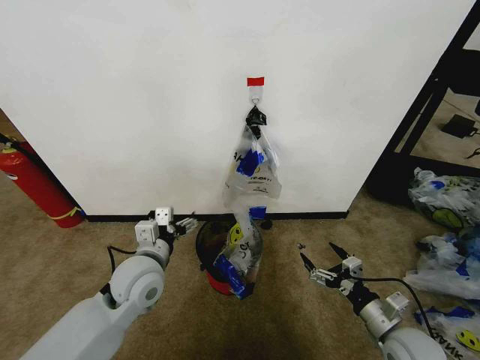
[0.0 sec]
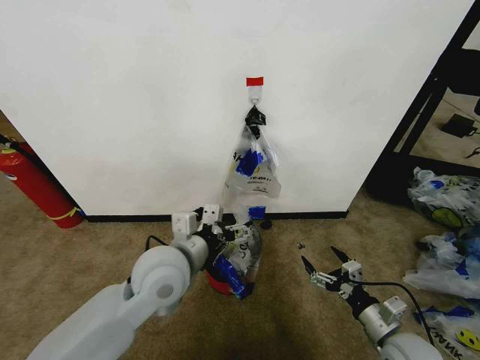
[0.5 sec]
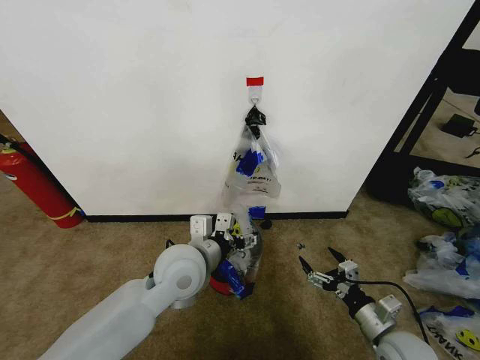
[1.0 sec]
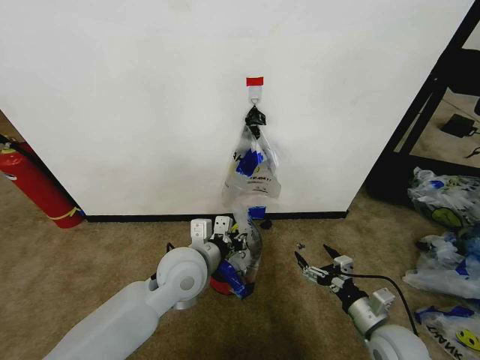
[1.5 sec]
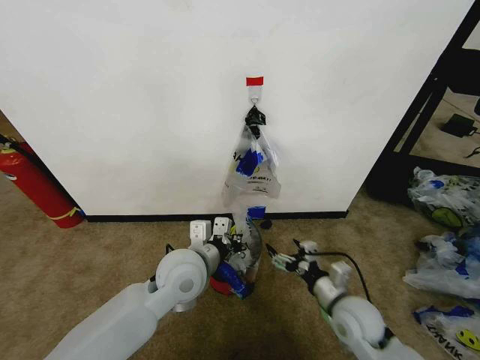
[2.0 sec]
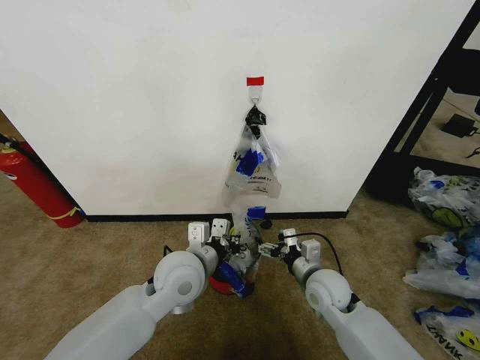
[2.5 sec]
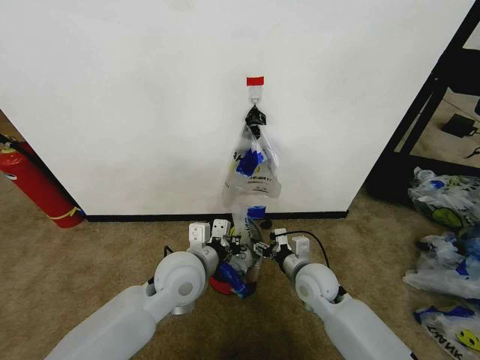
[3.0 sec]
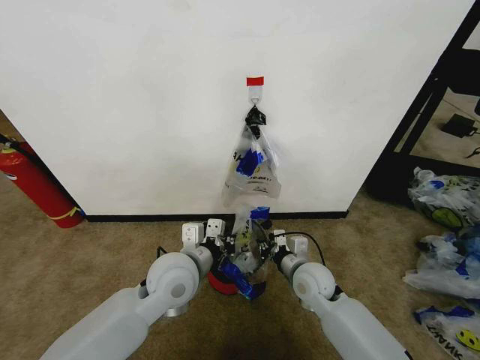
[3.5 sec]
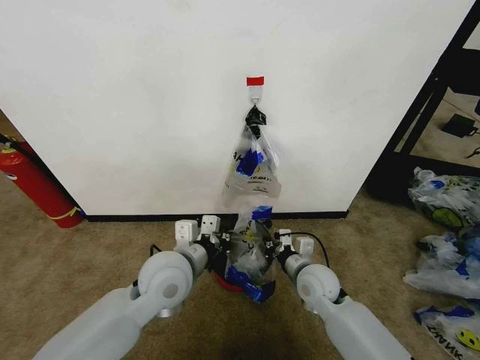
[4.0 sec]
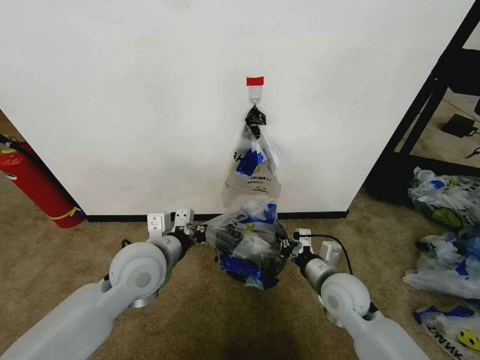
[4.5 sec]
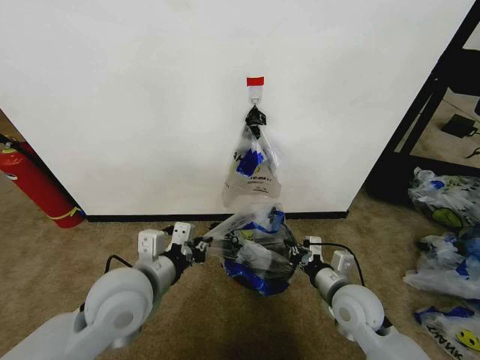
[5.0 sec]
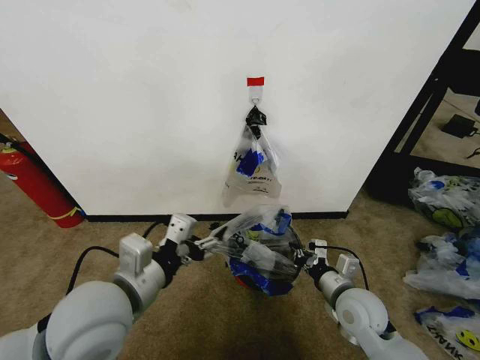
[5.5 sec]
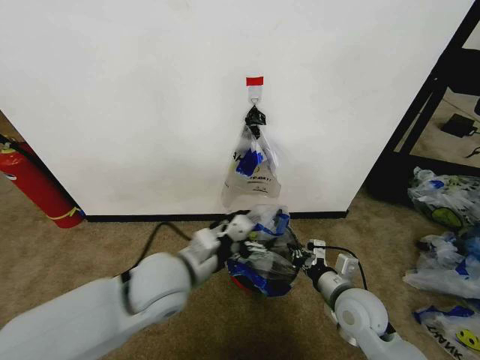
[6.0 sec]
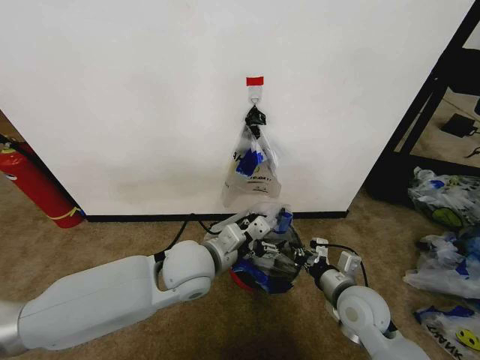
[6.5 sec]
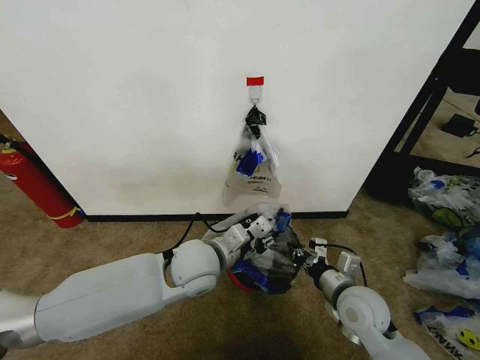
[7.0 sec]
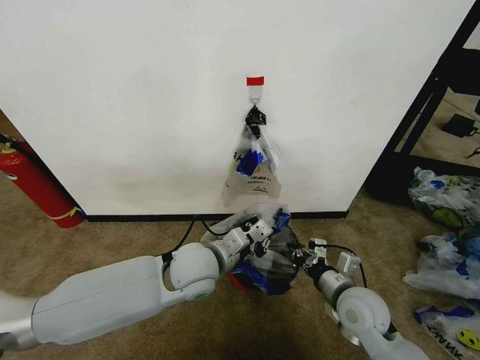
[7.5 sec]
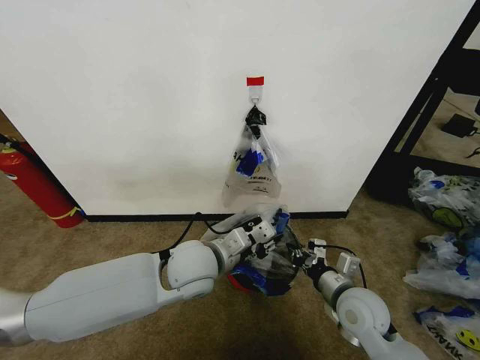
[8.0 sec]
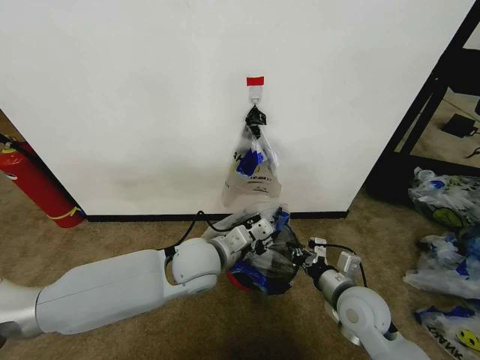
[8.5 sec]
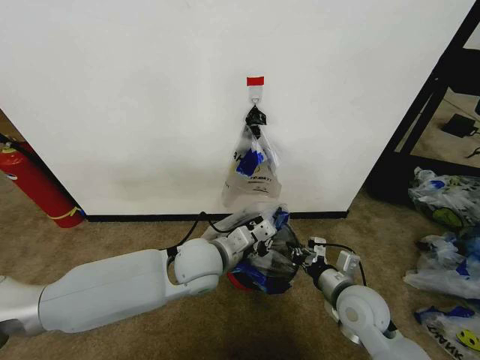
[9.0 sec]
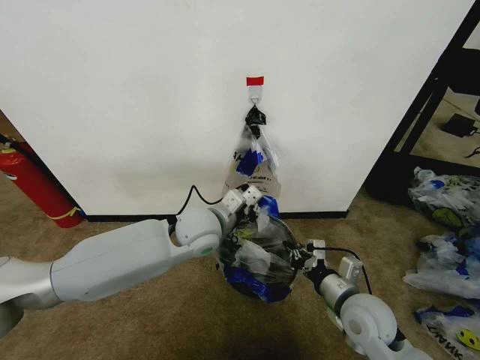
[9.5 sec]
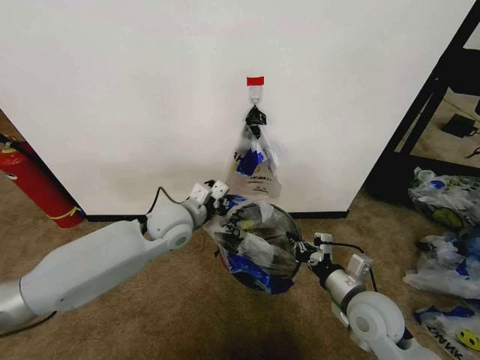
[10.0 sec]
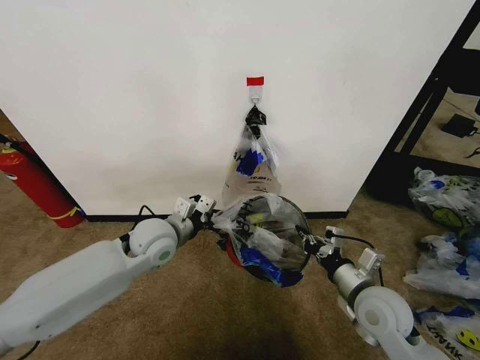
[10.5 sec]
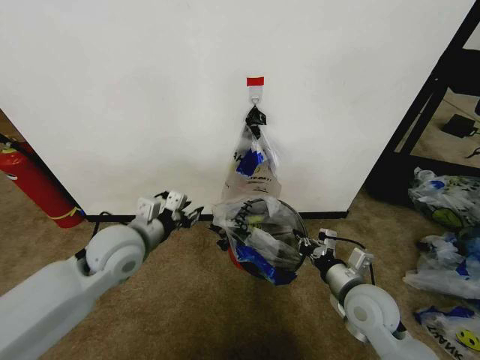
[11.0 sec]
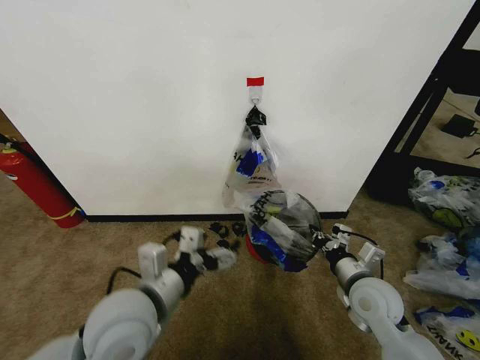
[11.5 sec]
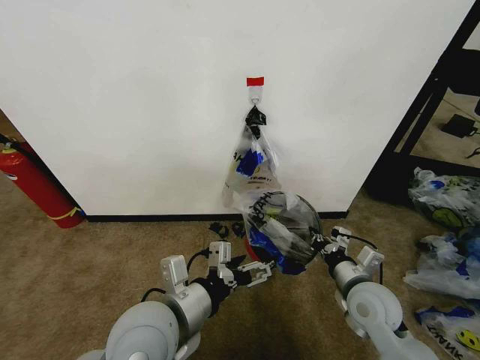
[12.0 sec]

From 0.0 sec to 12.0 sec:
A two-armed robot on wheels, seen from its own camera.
Task of the whole recording: Pick up the garbage bag from the wall and place it over the trash bin.
From 0.0 sec to 2.0 sec: The left gripper goes about 10 cm to the right, and closes up. Meanwhile the right gripper goes approximately 10 cm to the left and forward.
From 2.0 sec to 4.0 sec: The right gripper shifts roughly 10 cm forward and to the left, and closes up.
From 4.0 sec to 6.0 sec: The right gripper heads backward and to the right, covering some 10 cm; the left gripper reaches some 10 cm backward, then returns, and opens up.
From 6.0 sec to 8.0 sec: The left gripper moves roughly 5 cm, and closes.
From 8.0 sec to 10.0 sec: The left gripper shifts approximately 10 cm forward and to the left, and closes its fingers.
From 10.0 sec to 12.0 sec: The left gripper goes roughly 20 cm backward, and opens.

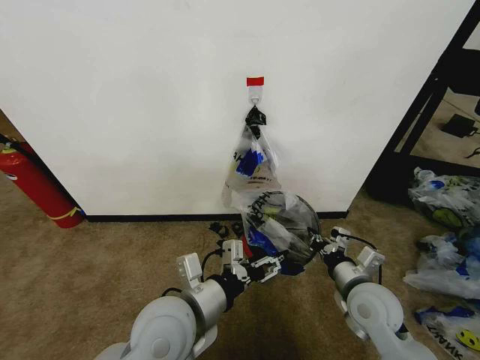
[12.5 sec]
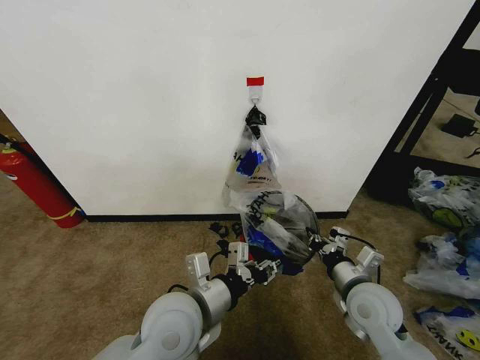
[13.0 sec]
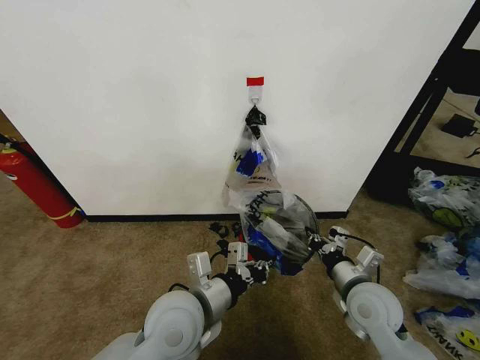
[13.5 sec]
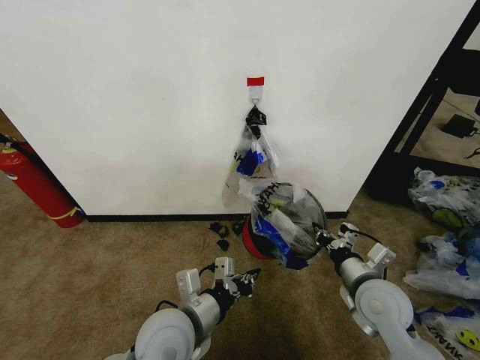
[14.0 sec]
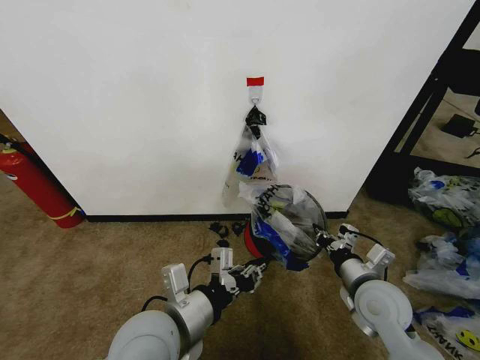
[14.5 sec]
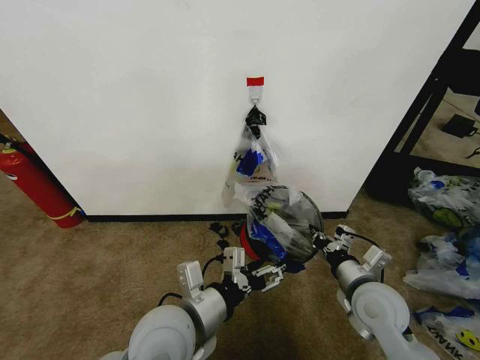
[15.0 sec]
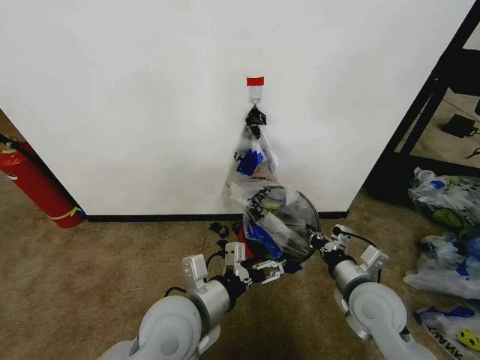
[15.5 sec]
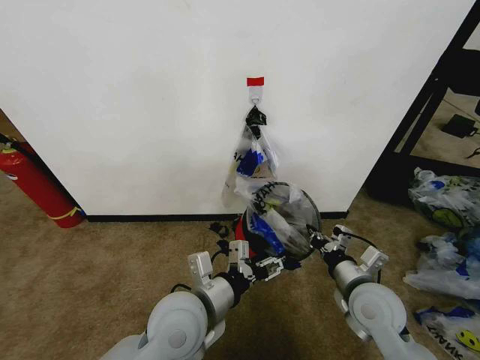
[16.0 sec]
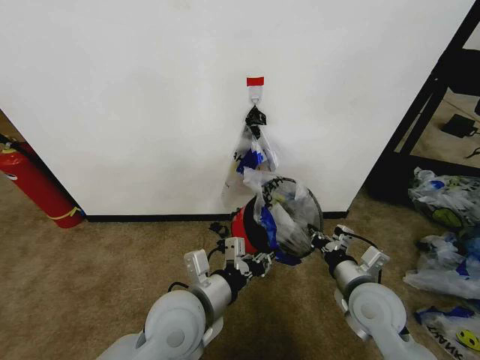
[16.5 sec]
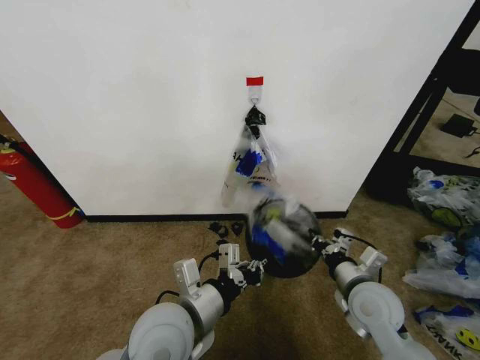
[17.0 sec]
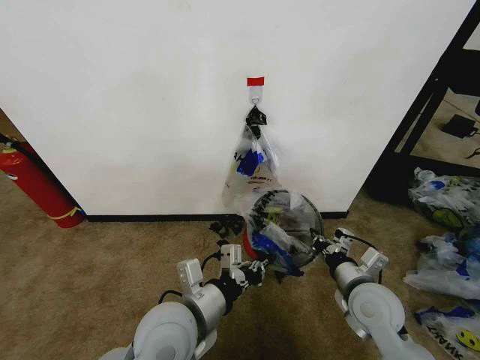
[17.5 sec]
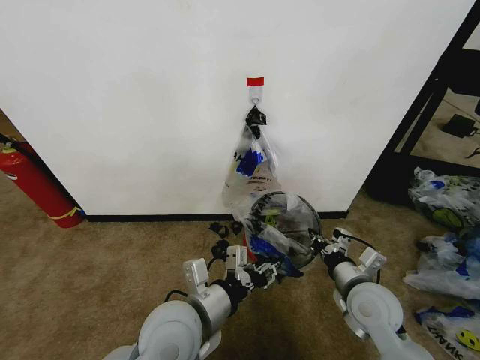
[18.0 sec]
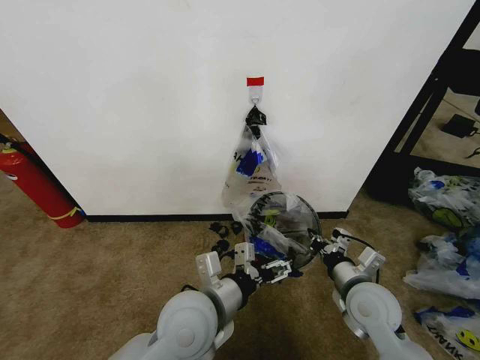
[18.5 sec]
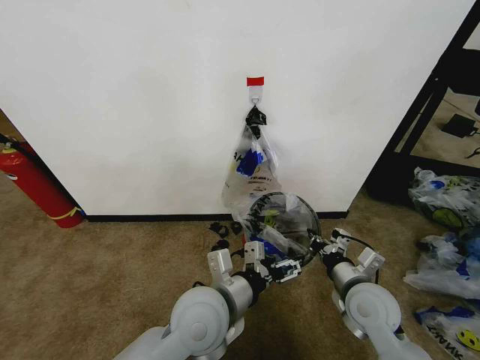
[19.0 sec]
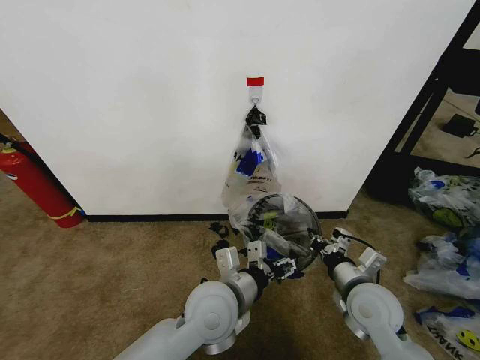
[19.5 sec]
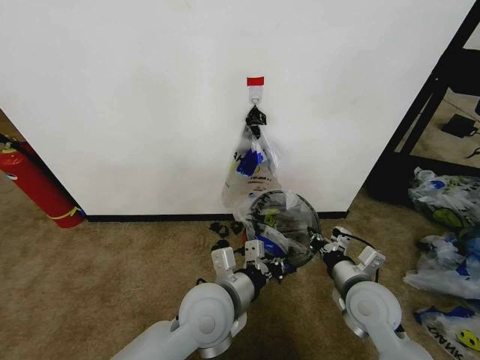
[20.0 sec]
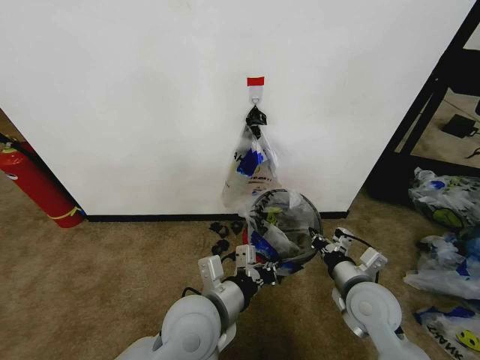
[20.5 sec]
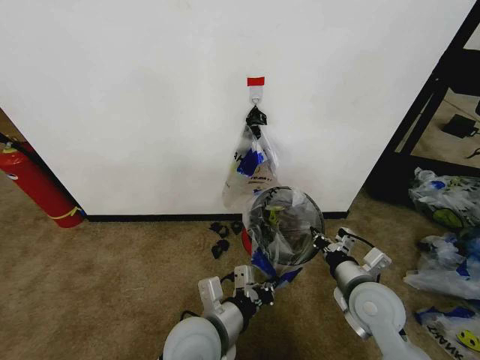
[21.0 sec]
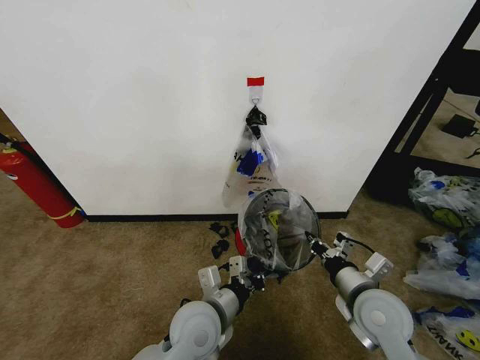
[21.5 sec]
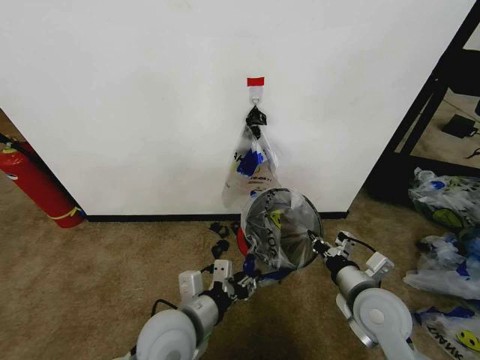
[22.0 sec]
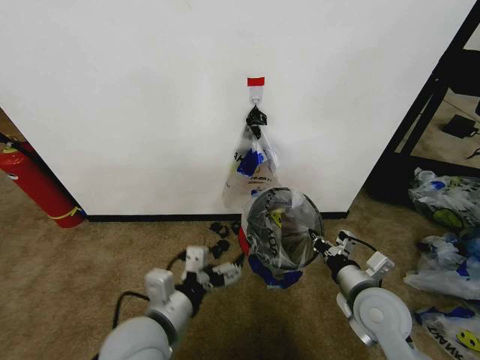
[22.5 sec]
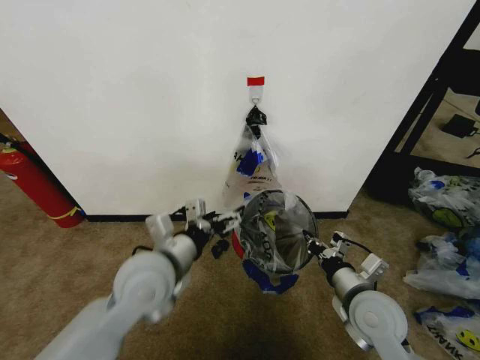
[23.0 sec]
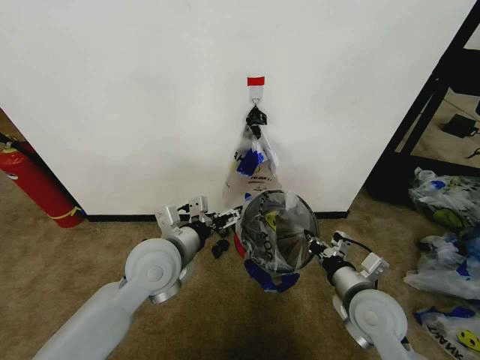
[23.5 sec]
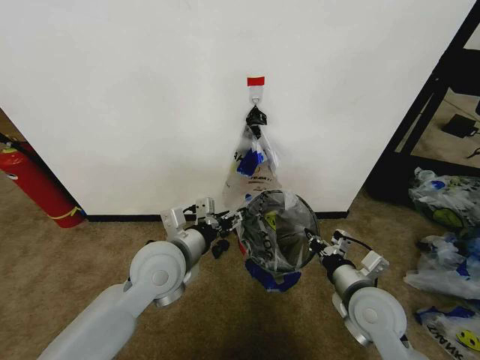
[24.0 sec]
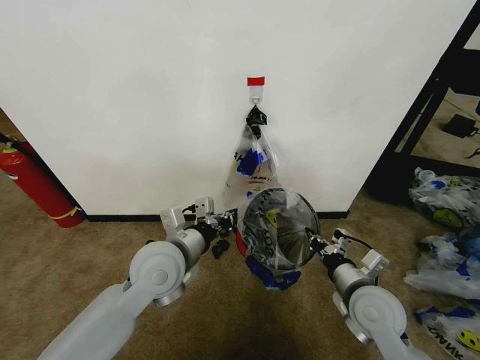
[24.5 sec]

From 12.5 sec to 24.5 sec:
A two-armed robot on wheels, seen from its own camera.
Task of the whole recording: Pick up the garbage bag from the wall and place it over the trash bin.
From 12.5 sec to 14.5 sec: The left gripper closes.
From 14.5 sec to 16.5 sec: The left gripper changes place by approximately 5 cm, and opens, then closes once more.
From 16.5 sec to 18.5 sec: The left gripper opens its fingers.
From 18.5 sec to 20.5 sec: The left gripper closes its fingers.
From 20.5 sec to 22.5 sec: The left gripper travels to the left by some 10 cm, and opens.
From 22.5 sec to 24.5 sec: The left gripper is displaced forward by approximately 10 cm, and closes its fingers.

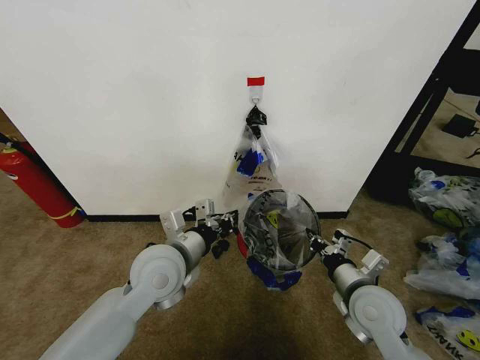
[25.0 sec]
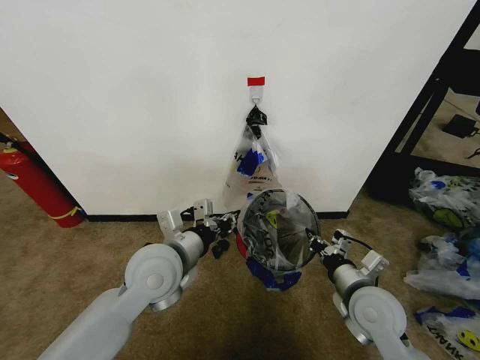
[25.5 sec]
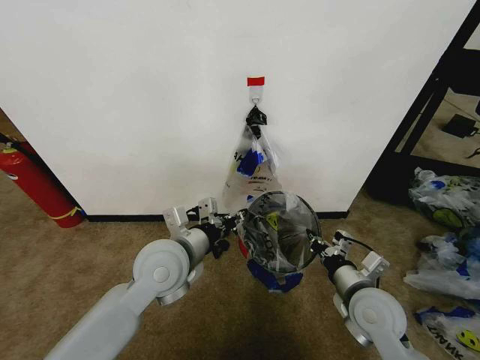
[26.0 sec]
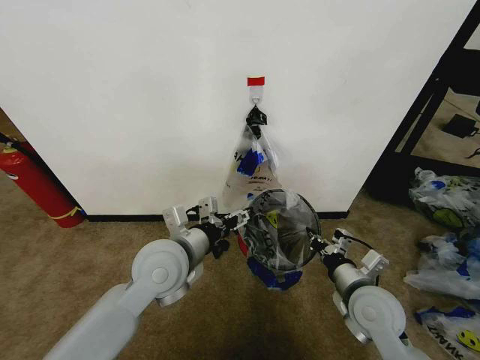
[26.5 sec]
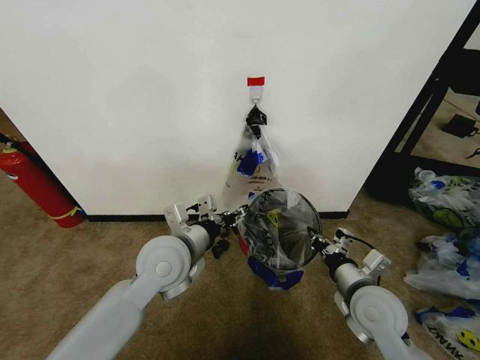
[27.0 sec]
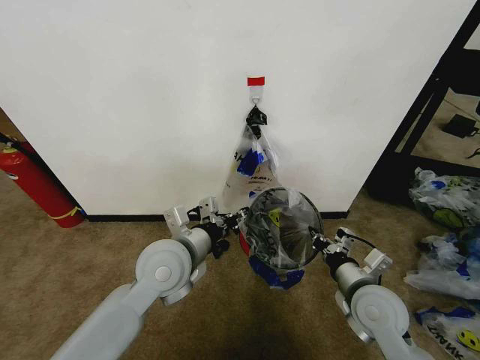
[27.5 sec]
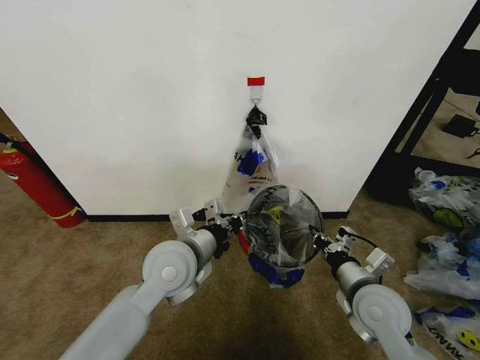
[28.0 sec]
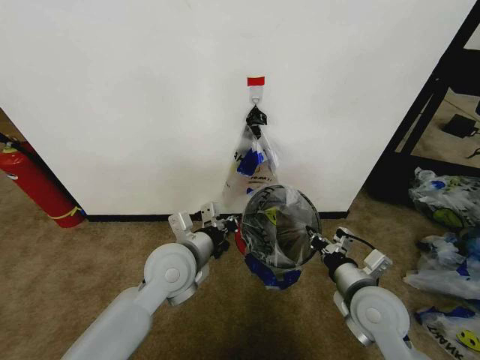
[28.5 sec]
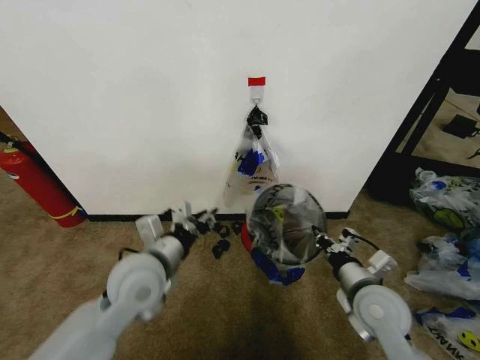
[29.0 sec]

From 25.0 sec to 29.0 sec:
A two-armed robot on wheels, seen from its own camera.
Task of the whole recording: Pick up the garbage bag from the wall and place it over the trash bin.
From 25.0 sec to 27.0 sec: The left gripper opens its fingers.
From 27.0 sec to 29.0 sec: The grippers stay close to where they were, moving slightly.
